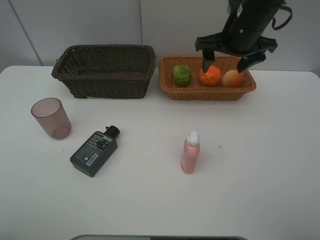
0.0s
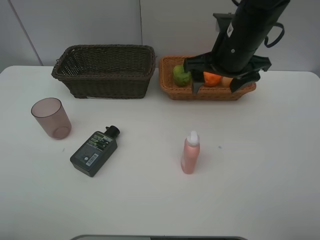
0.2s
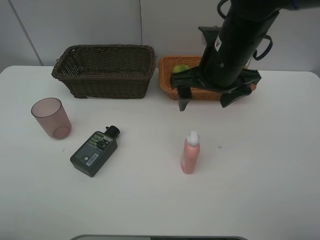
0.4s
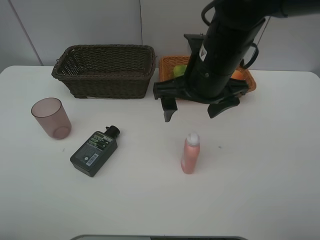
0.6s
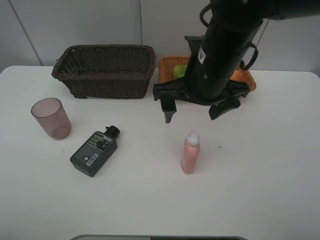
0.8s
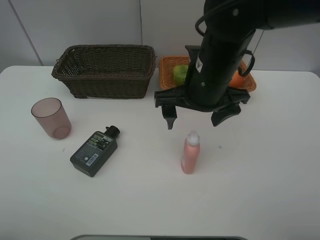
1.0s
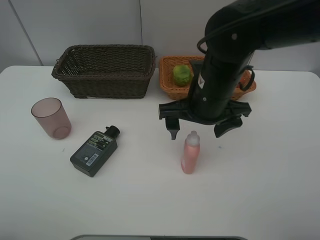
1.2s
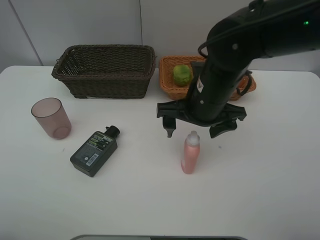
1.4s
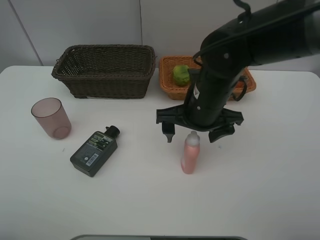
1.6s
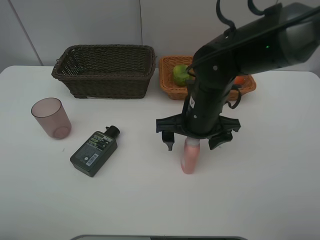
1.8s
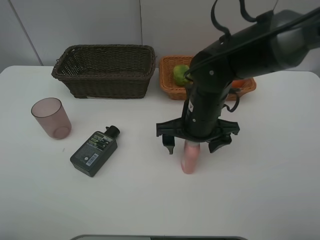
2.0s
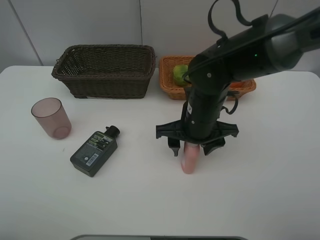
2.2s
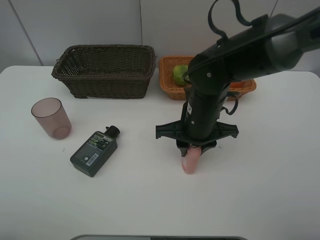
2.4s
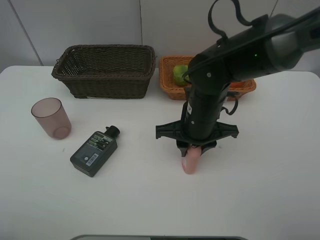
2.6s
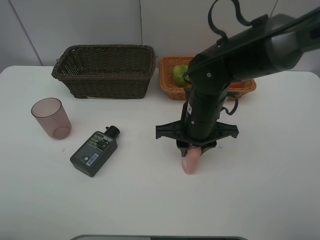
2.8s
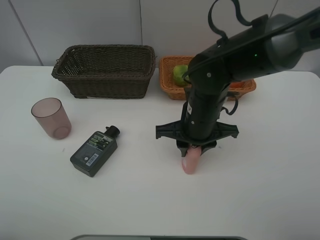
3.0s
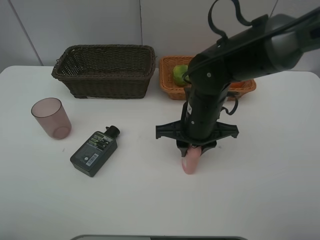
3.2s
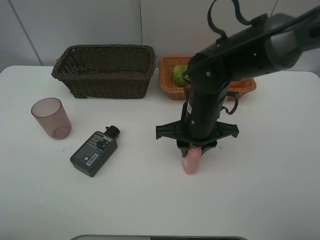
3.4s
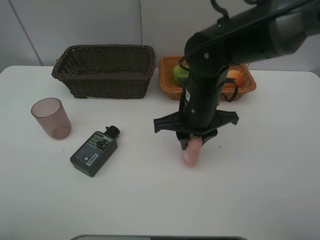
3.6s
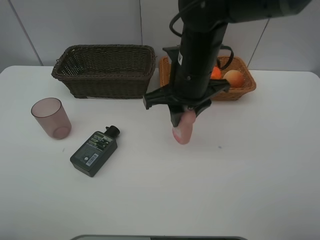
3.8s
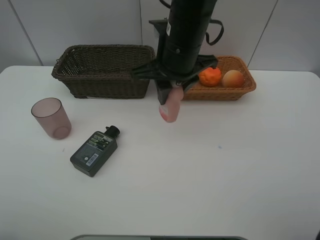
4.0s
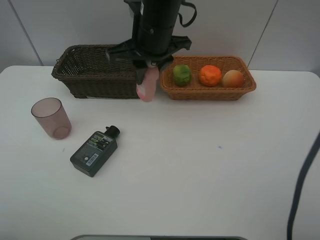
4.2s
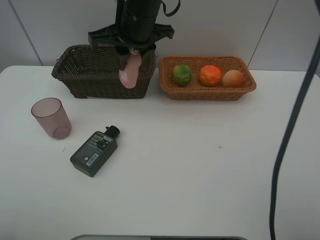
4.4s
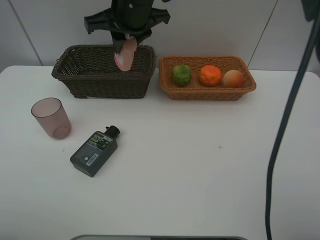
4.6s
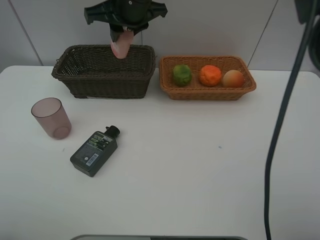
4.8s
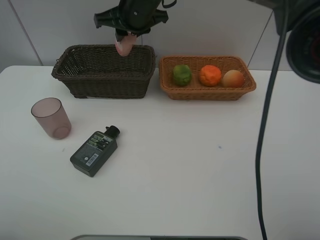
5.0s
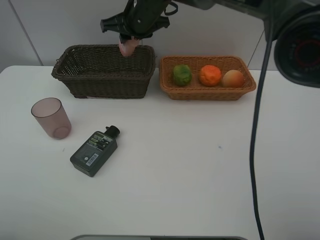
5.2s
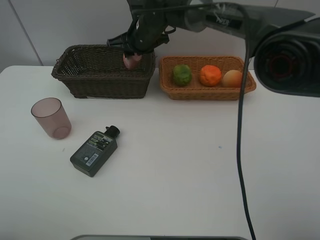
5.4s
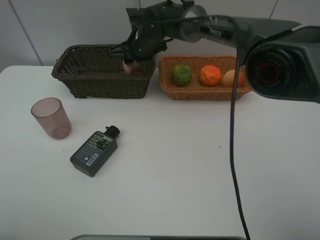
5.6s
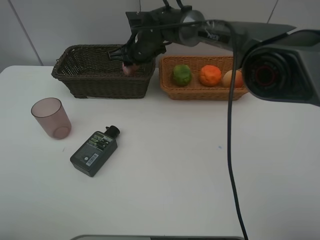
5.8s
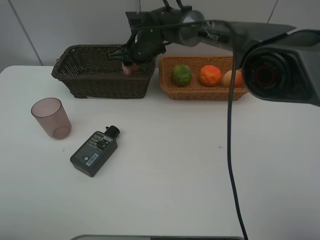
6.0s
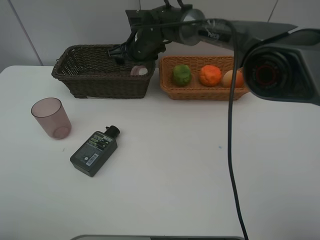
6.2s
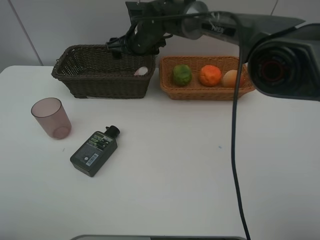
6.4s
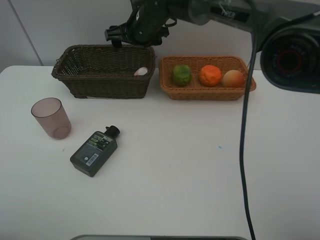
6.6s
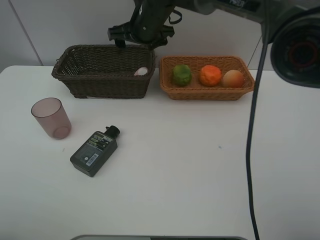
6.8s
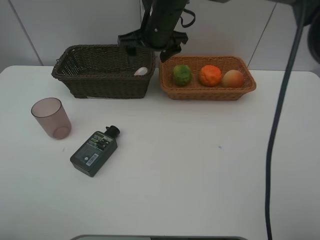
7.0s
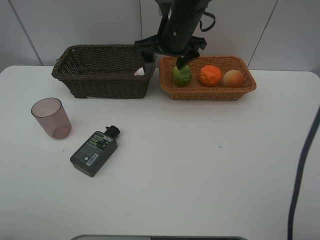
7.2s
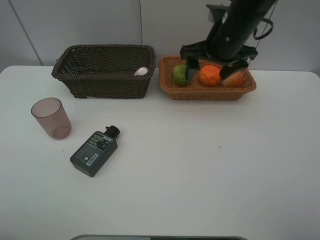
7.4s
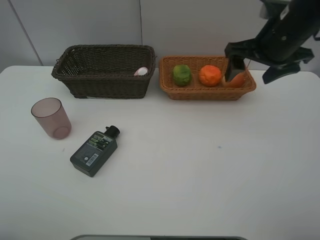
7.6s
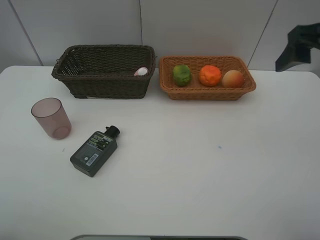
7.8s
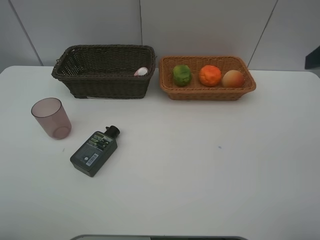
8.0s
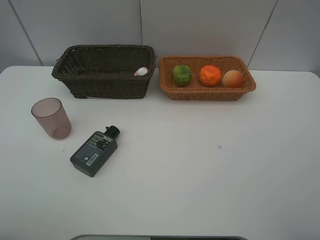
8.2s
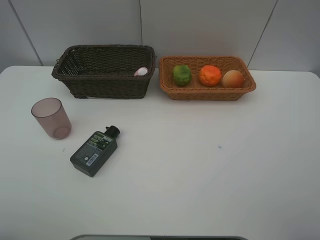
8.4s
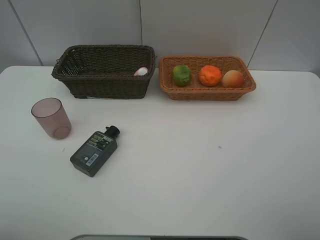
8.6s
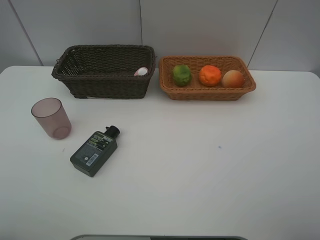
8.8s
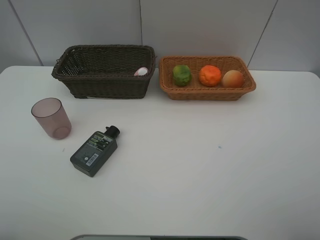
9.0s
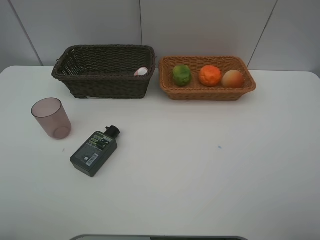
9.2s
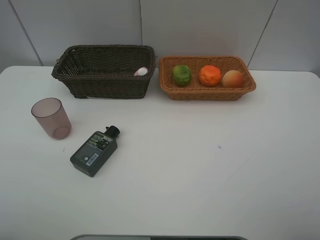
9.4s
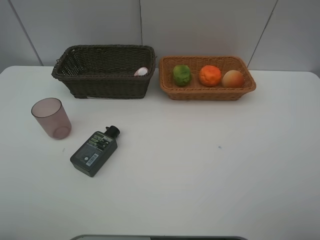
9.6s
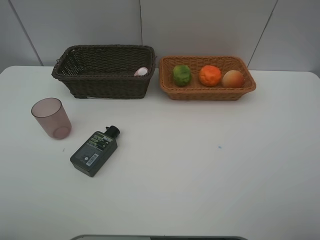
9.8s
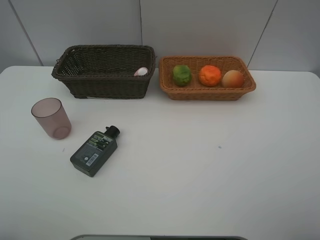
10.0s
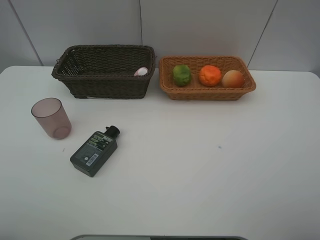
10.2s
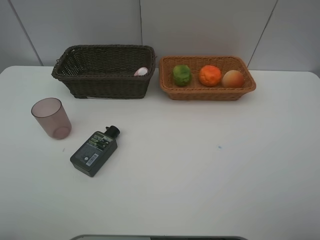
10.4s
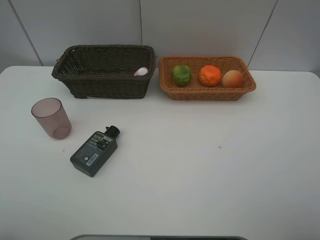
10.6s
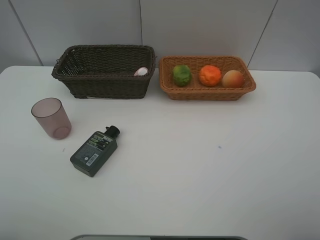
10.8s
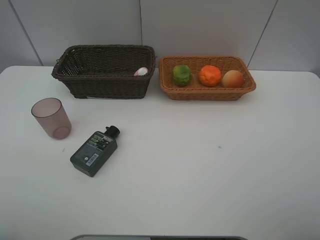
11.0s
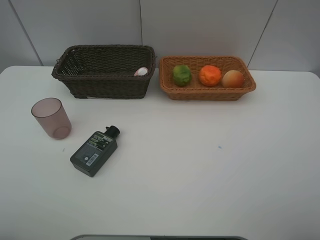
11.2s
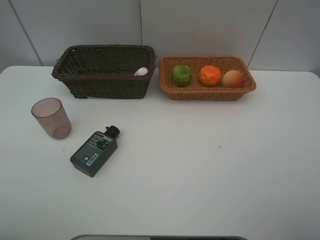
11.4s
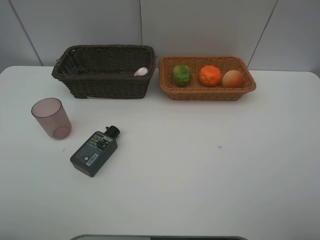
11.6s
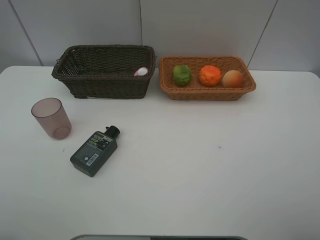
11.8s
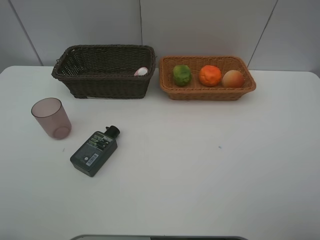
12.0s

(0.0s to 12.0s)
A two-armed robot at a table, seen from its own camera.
Task of the whole recording: place multiple objects separately in different baskets.
0.0s - 1.6s: The right gripper travels backward, downward and to the left by about 15 cm.
1.6s - 3.0s: The right gripper closes up.
3.0s - 4.4s: The right gripper shifts approximately 20 cm upward, to the left and forward.
4.4s - 6.0s: The right gripper moves downward and forward, about 15 cm.
6.0s - 7.6s: The right gripper goes approximately 35 cm to the right, backward and upward, and opens its fingers.
7.6s - 9.0s: The right gripper moves backward, about 30 cm.

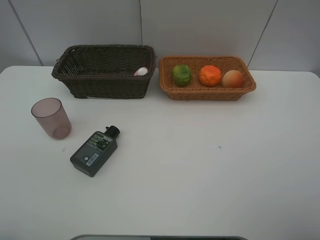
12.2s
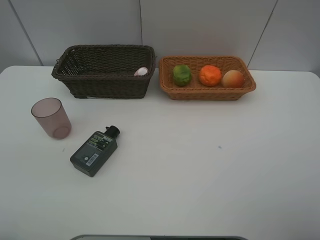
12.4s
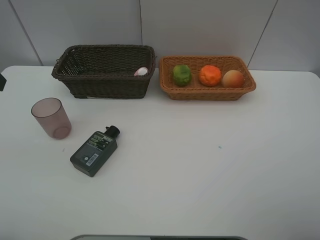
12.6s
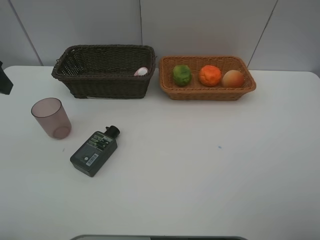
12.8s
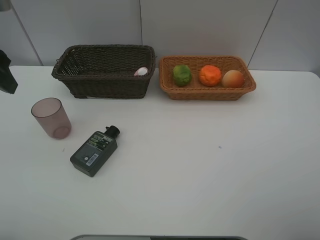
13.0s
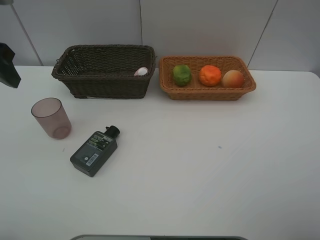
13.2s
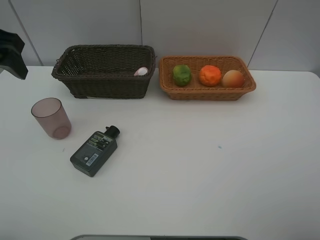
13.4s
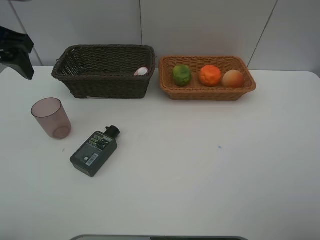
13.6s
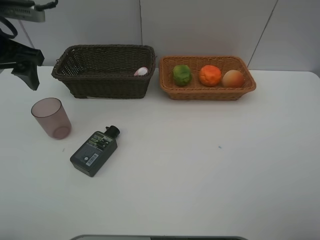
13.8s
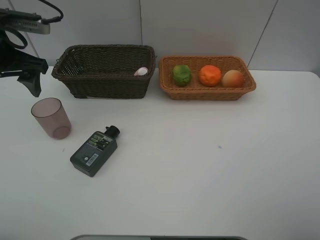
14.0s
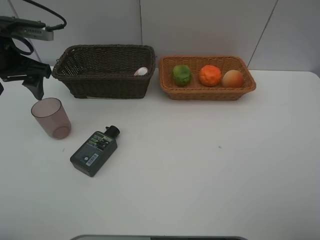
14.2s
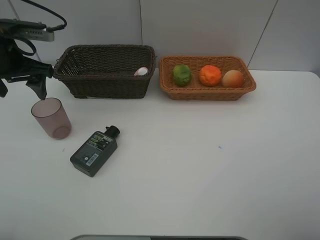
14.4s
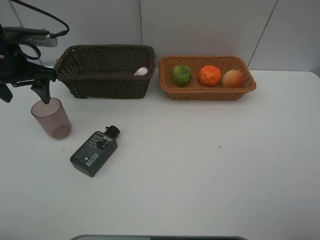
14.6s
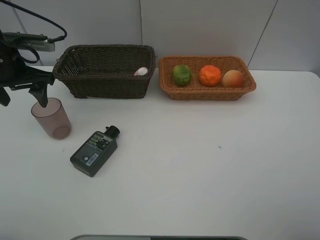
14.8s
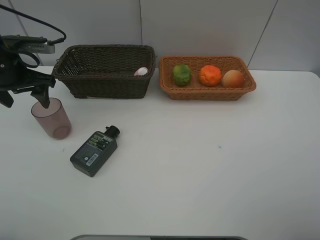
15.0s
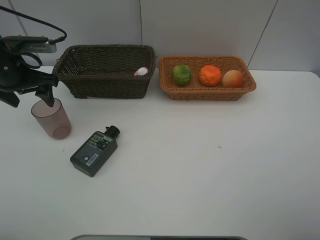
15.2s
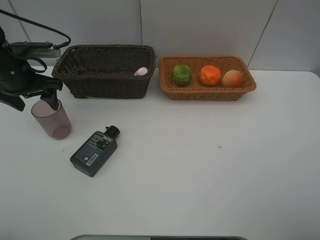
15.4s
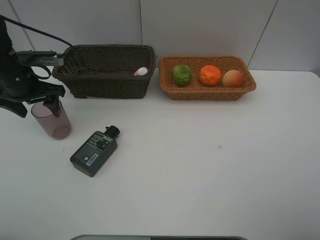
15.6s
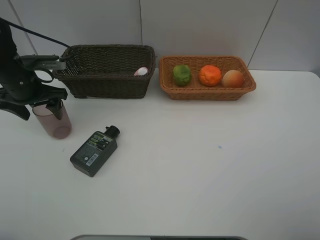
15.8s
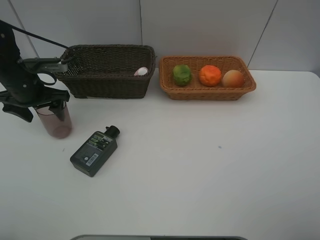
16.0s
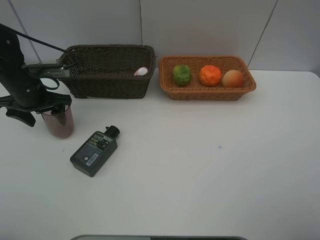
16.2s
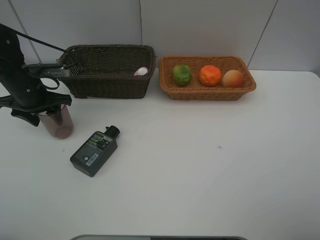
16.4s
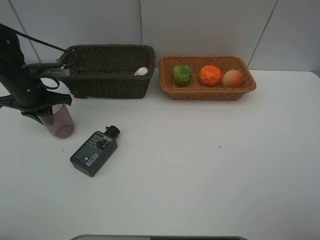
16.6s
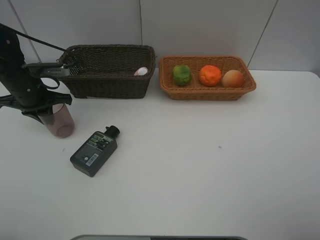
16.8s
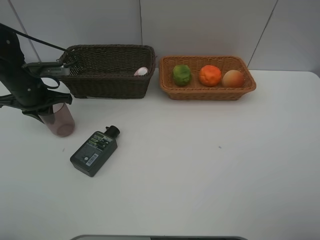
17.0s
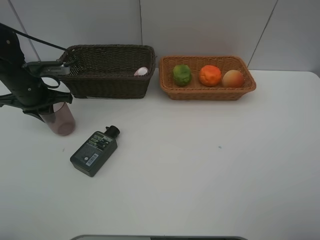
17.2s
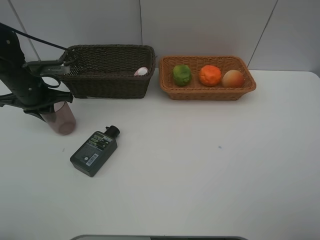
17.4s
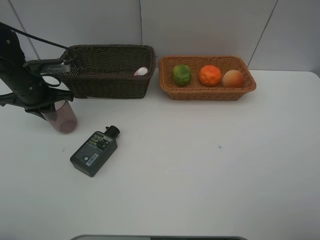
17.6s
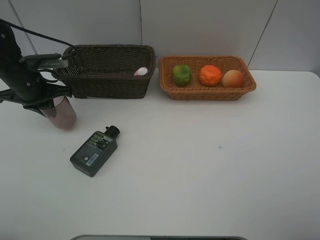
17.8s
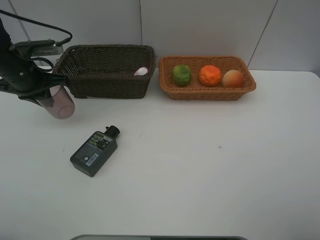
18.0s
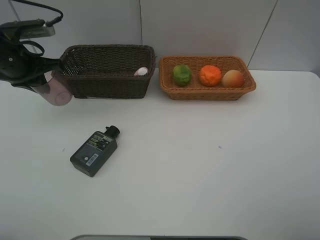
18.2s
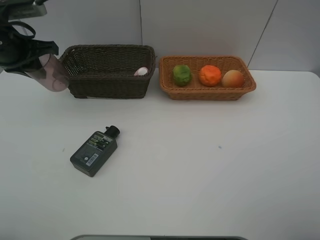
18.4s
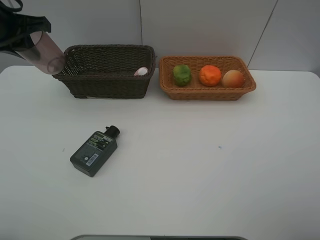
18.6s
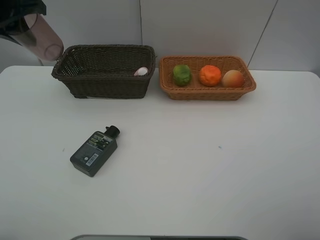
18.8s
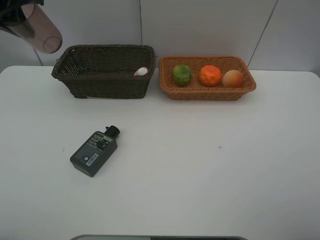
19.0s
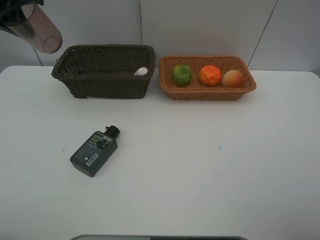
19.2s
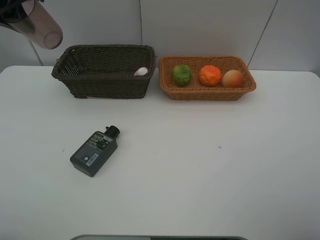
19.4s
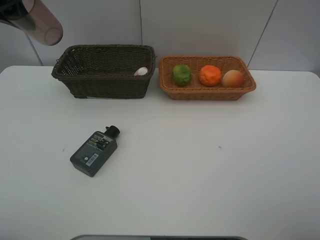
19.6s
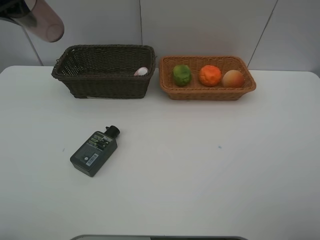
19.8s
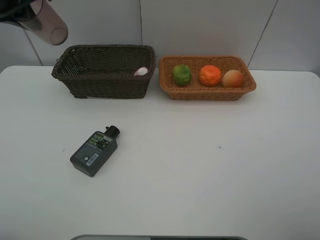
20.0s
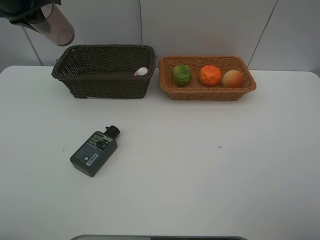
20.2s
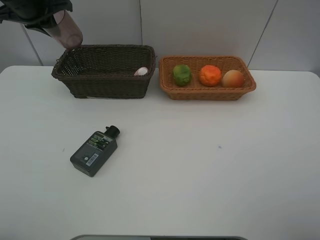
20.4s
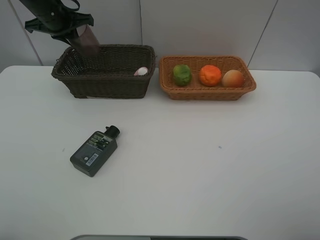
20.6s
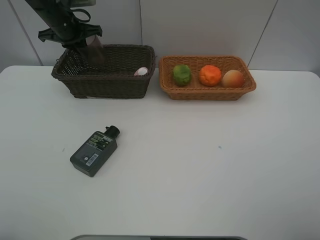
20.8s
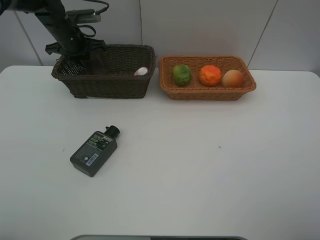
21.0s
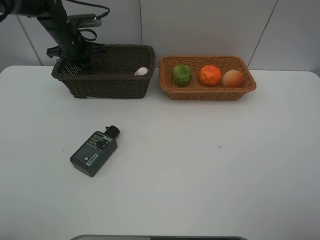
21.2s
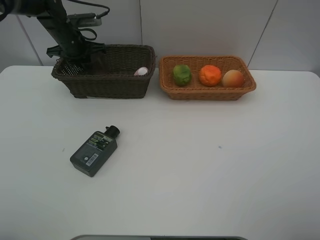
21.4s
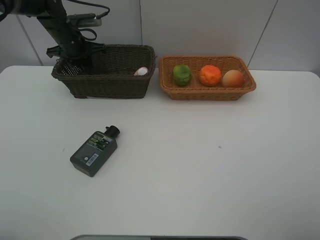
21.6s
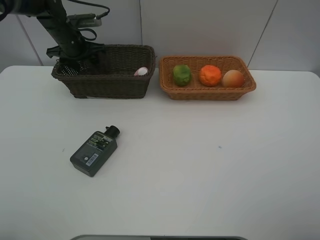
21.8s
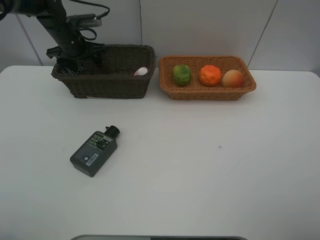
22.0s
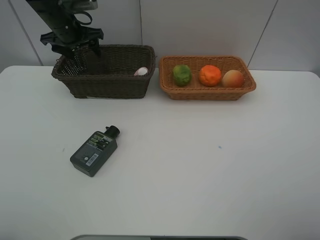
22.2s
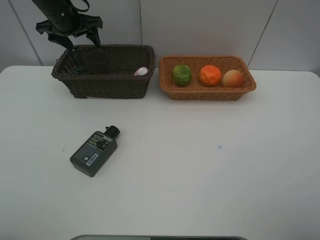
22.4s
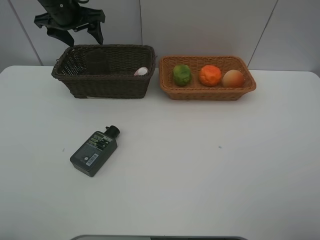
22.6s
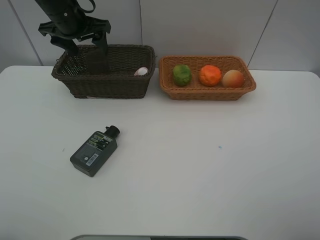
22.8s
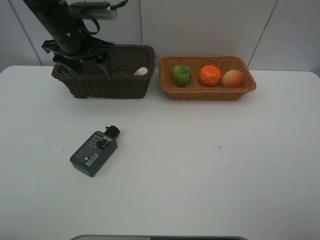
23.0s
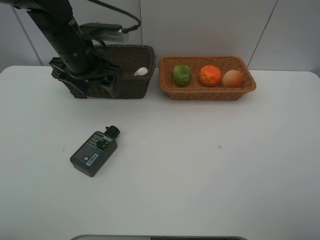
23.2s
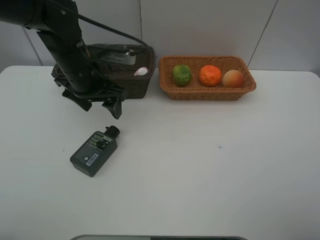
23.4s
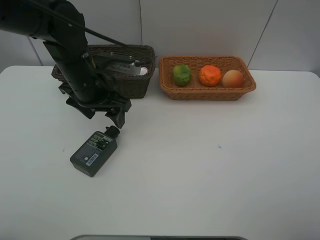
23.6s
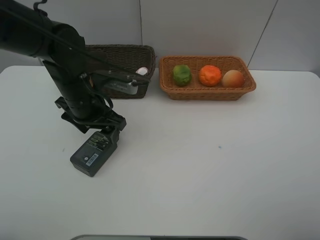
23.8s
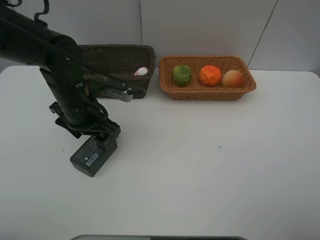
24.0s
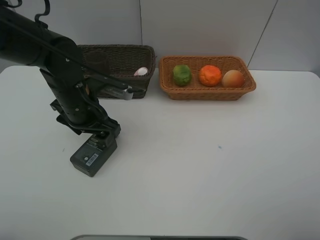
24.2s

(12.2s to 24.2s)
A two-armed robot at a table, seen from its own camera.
Task of the whole recording: place multiple objects separately in different baskets.
12.2s - 13.8s: The left gripper travels forward by about 15 cm.
13.8s - 15.2s: The left gripper heads downward, covering some 10 cm.
15.2s - 16.6s: The left gripper heads downward, covering some 5 cm, and closes its fingers.
16.6s - 18.2s: The left gripper shifts roughly 10 cm upward.
18.2s - 19.8s: The left gripper travels upward by roughly 10 cm.
19.8s - 21.2s: The left gripper goes roughly 20 cm downward and forward.
21.2s - 22.6s: The left gripper shifts about 10 cm upward, and opens its fingers.
22.6s - 24.2s: The left gripper shifts some 20 cm backward and downward.
